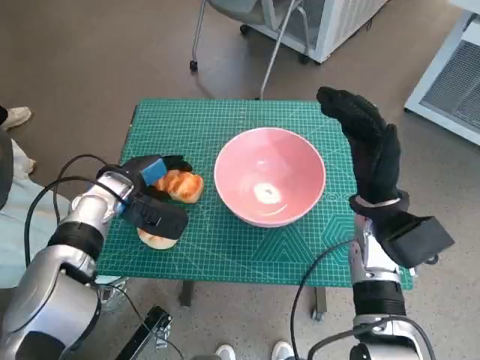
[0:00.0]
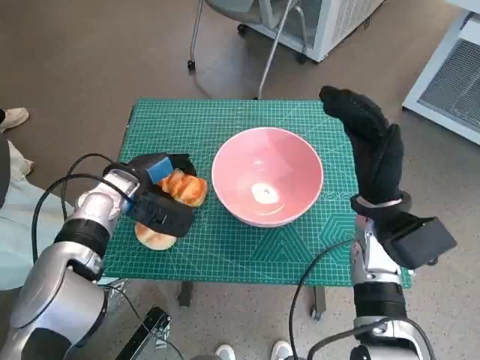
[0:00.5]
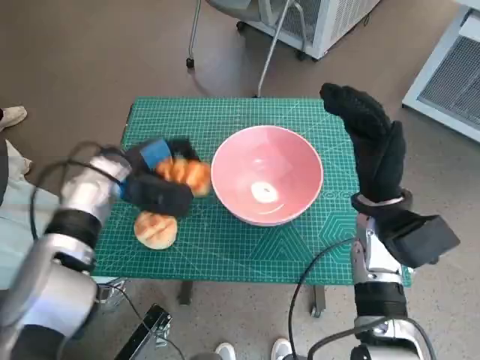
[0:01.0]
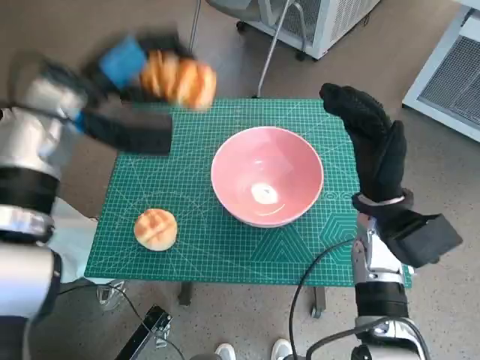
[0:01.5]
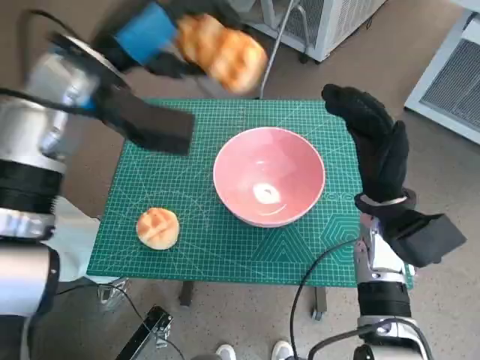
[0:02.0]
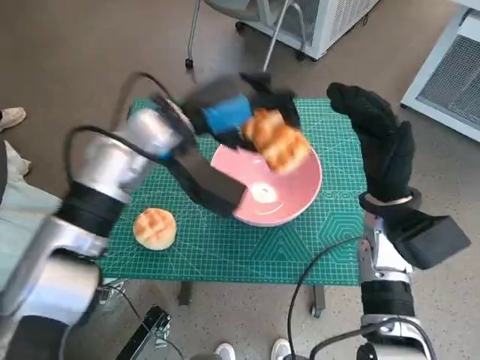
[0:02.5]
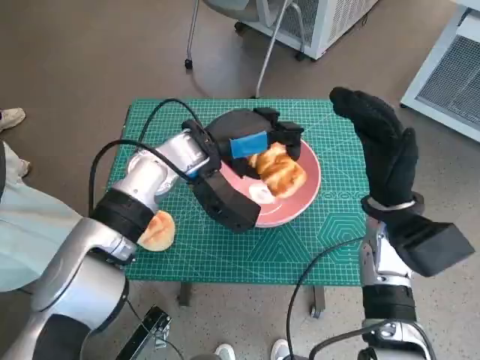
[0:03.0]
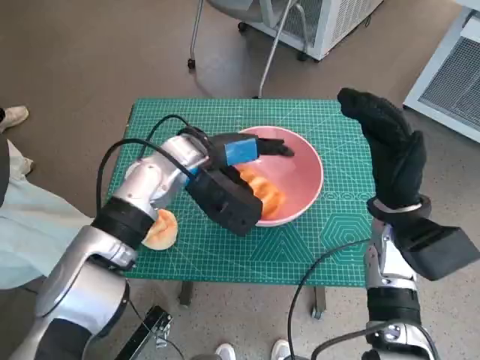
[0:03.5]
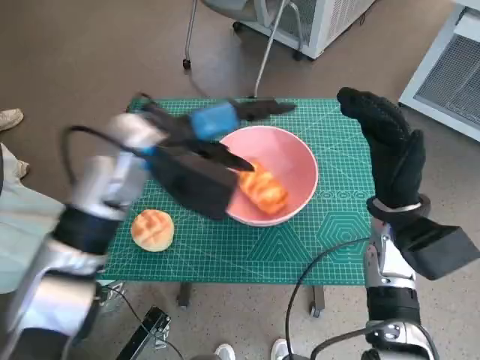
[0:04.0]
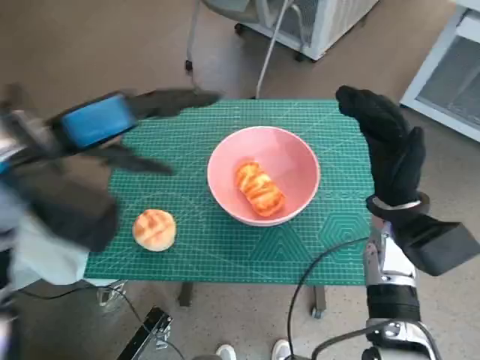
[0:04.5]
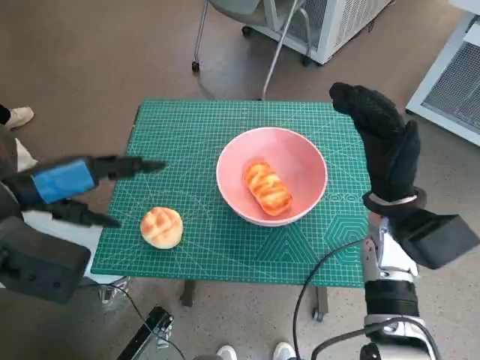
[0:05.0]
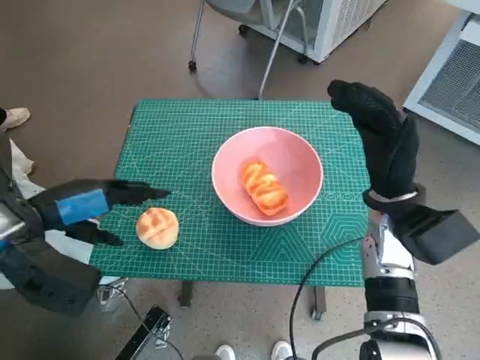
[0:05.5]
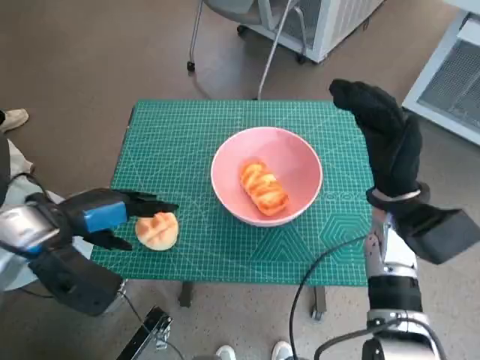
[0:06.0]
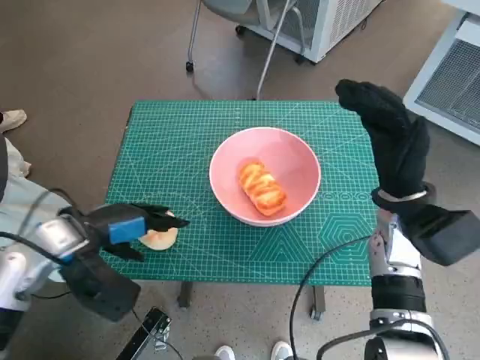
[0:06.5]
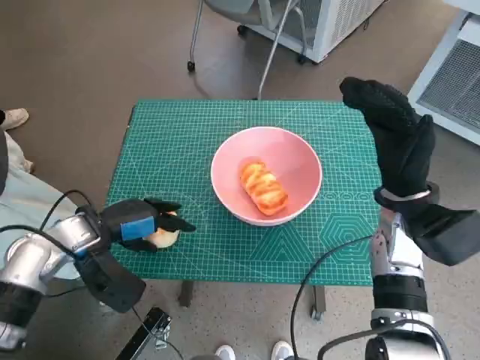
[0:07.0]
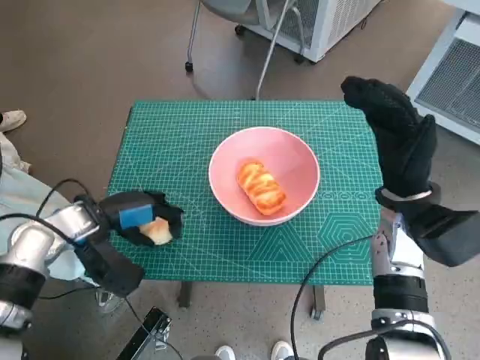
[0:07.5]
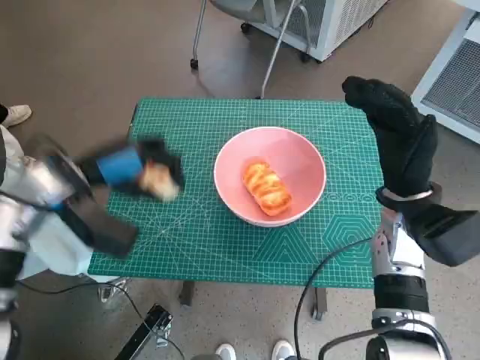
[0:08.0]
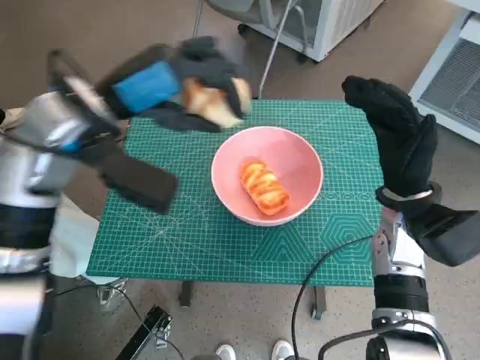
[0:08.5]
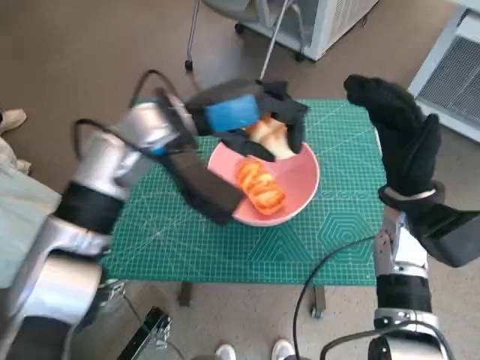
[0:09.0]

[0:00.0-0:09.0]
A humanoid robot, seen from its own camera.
Task of the whole recording: Push the bowl to the center of the table and put the bread into the bowl.
Step, 0:01.0 to 0:03.5: Place the long bread in pink bowl with left hand.
Step, 0:04.5 to 0:07.0: Grasp the round bread with left hand.
0:00.0 to 0:02.0: The left hand shifts approximately 20 cm upward.
0:02.0 to 0:04.5: The left hand moves backward, about 5 cm, and moves approximately 10 cm to the right and comes back.
0:04.5 to 0:07.0: The left hand heads downward, covering approximately 20 cm.
0:07.0 to 0:09.0: The left hand travels upward, to the right and forward by roughly 20 cm.

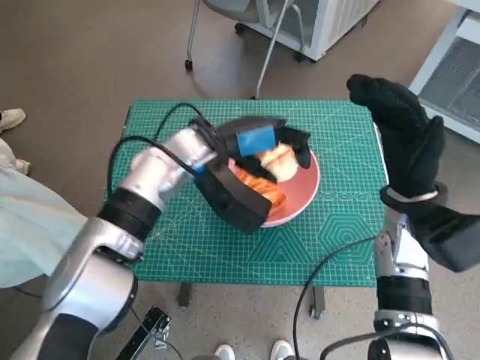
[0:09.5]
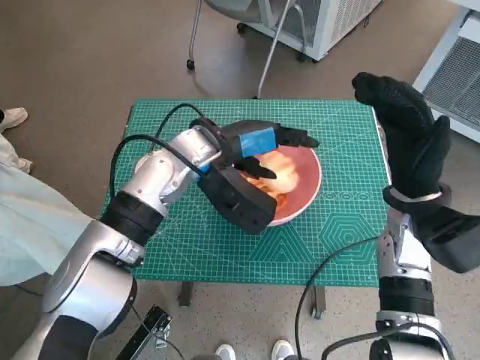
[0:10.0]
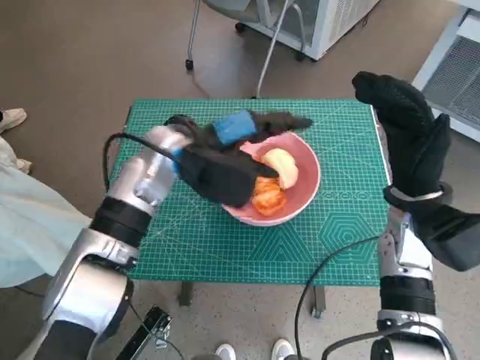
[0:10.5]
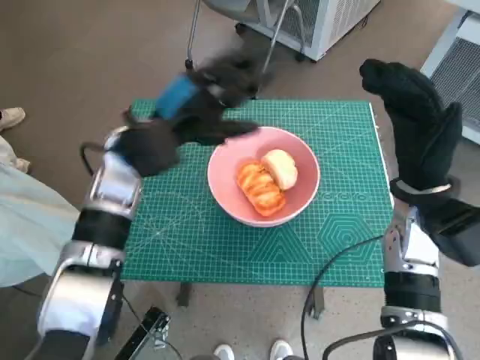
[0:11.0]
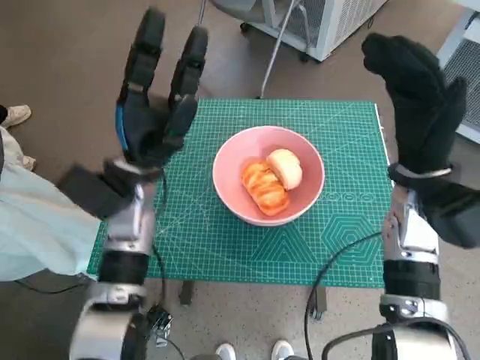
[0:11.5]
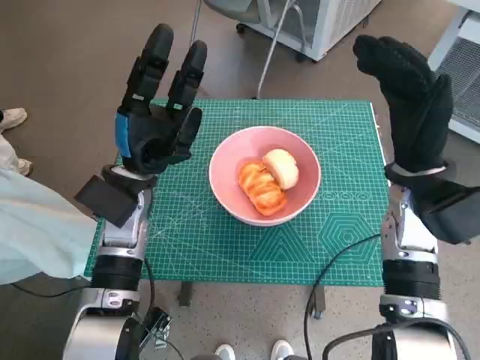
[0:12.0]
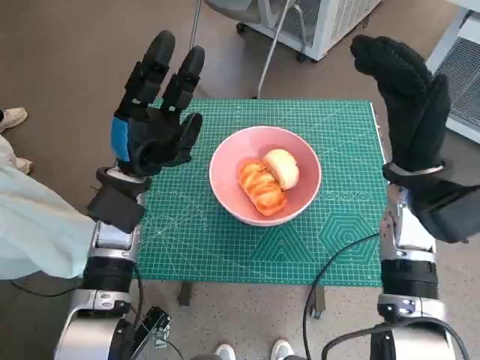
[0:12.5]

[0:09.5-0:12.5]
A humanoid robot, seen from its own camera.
Task of the whole recording: Push the bowl to the center of the table and put the bread into the bowl.
0:09.5 to 0:11.0: The left hand goes approximately 5 cm to the left.
0:11.0 to 0:12.5: The left hand heads downward, covering some 5 cm.

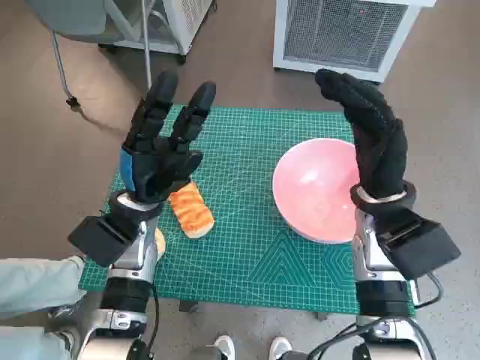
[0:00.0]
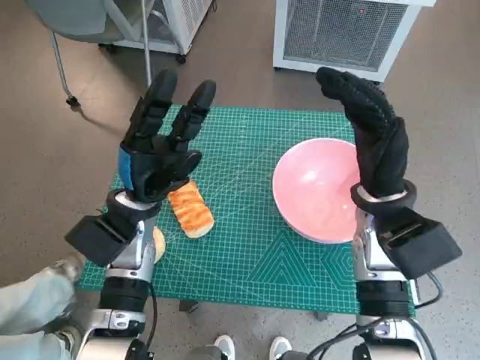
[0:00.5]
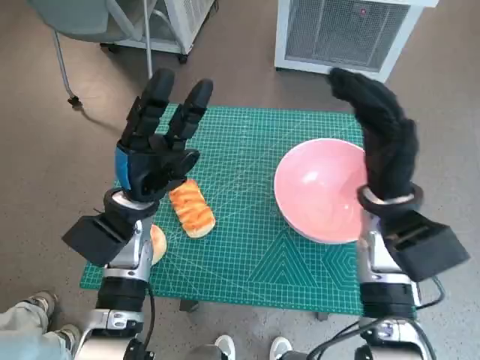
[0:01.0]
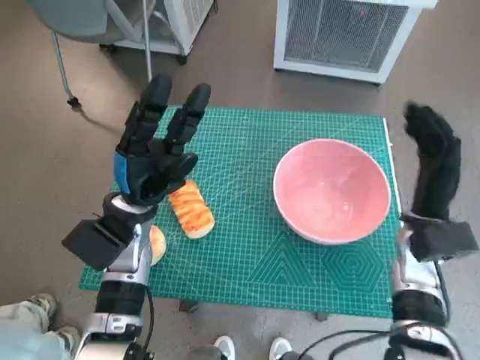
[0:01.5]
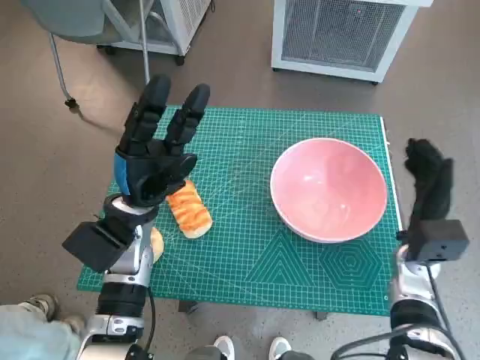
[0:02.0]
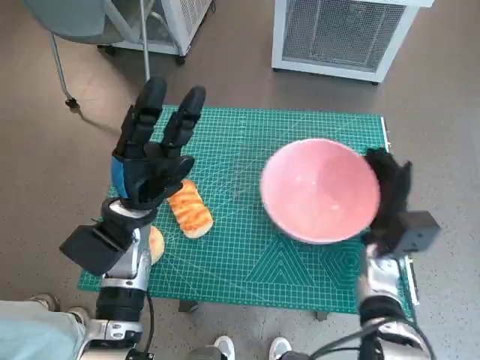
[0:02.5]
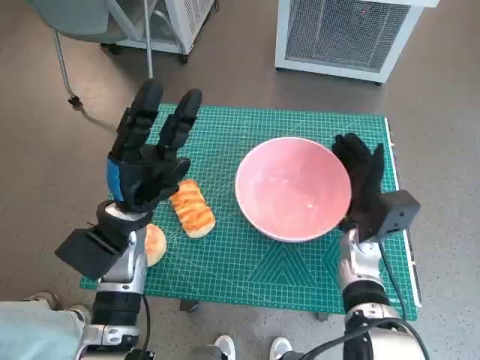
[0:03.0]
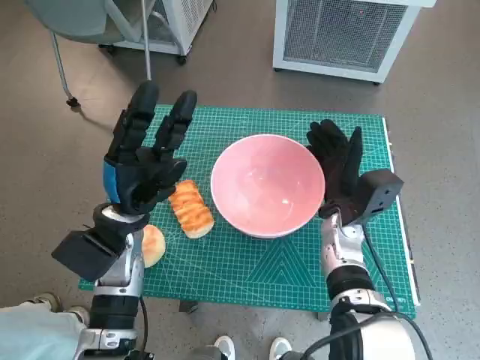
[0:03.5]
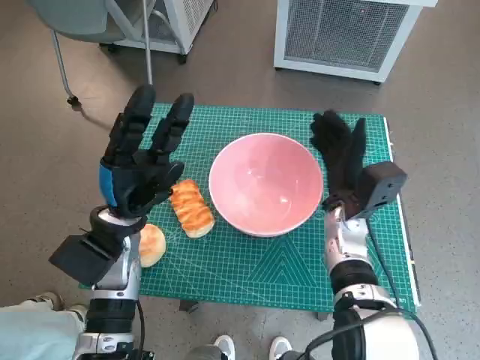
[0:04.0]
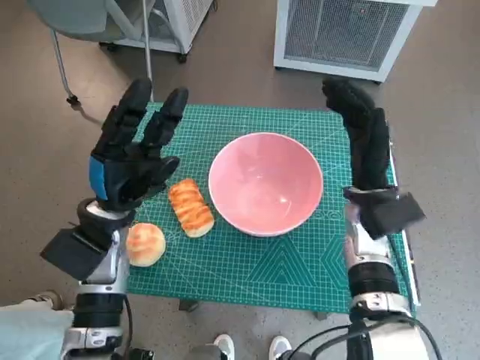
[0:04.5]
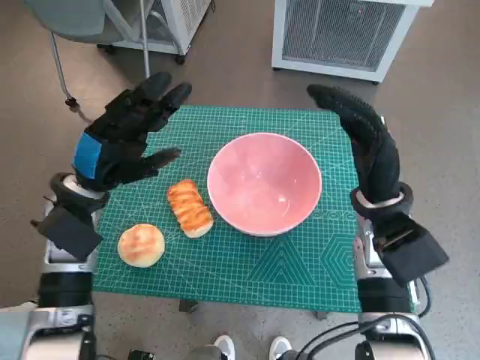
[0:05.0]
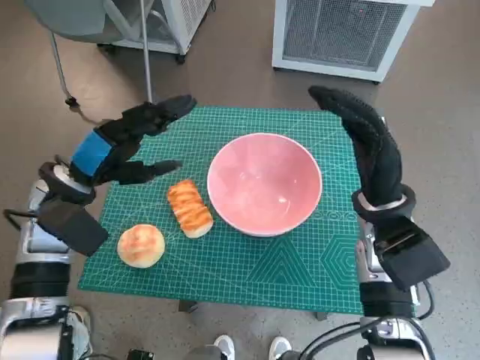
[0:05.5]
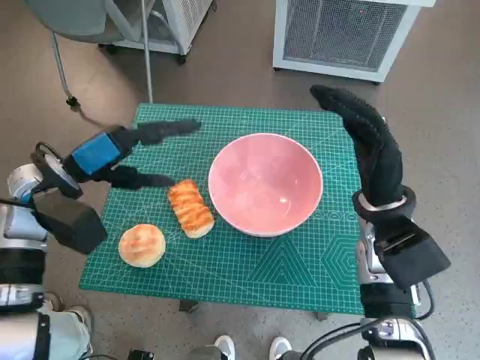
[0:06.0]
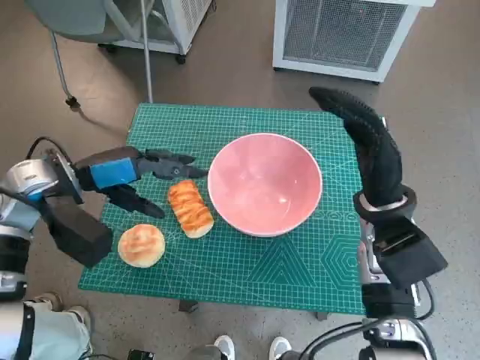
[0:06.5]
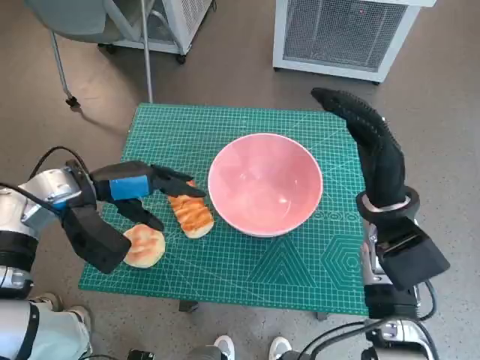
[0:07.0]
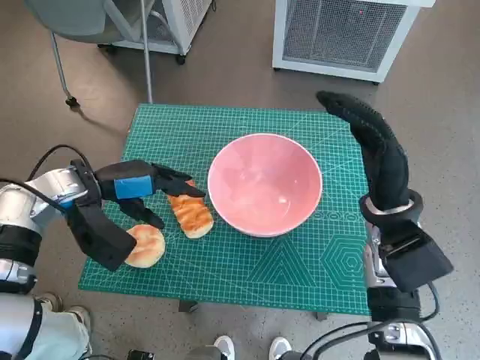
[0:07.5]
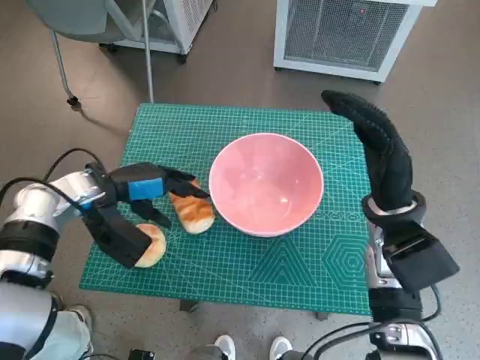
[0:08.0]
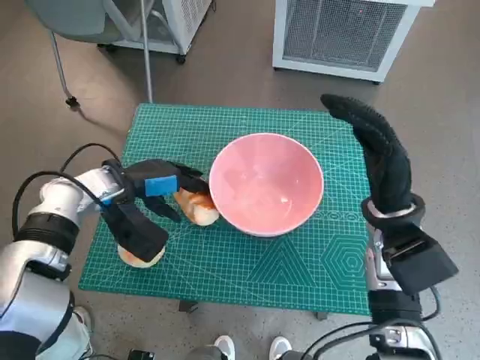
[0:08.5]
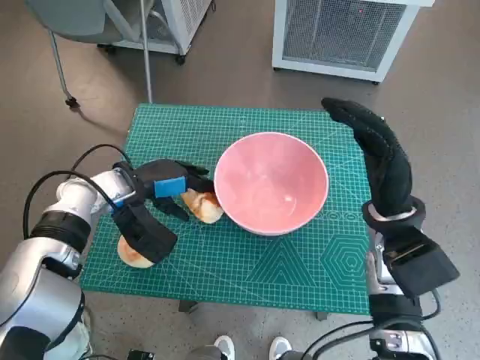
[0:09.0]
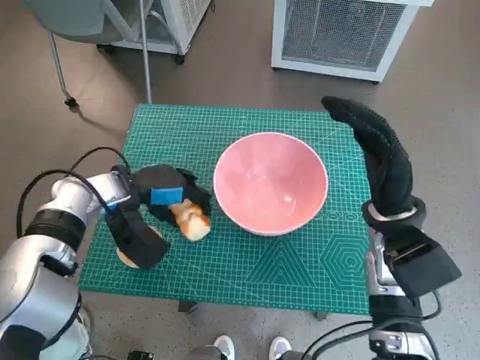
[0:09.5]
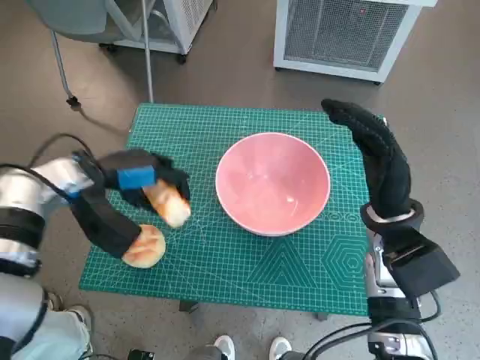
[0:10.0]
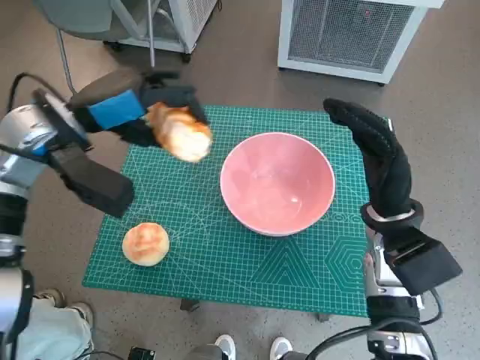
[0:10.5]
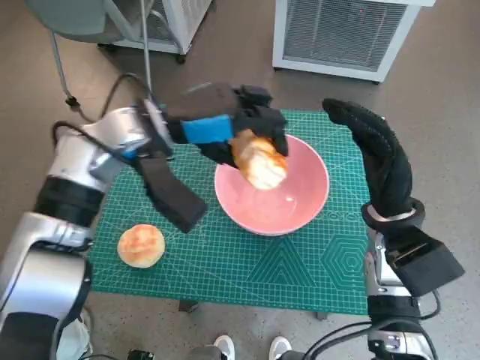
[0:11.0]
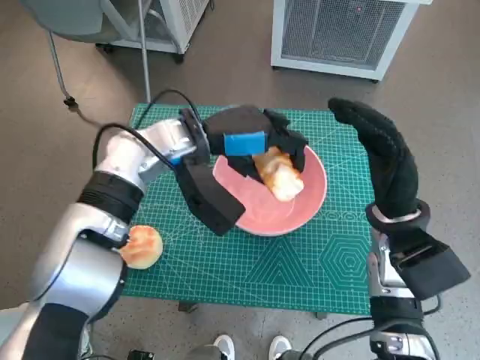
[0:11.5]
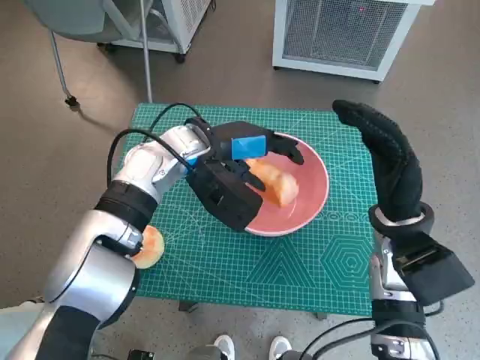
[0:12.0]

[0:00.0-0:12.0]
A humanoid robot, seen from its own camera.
Task of the whole recording: Push the bowl to the center of the table and put the bread into the bowl.
Step, 0:00.0 to 0:04.0: Move the pink bowl to the center of table with right hand.
Step, 0:04.5 to 0:09.0: Grasp the long bread with left hand.
0:02.0 to 0:04.0: The right hand goes approximately 10 cm to the left.
0:04.0 to 0:06.0: The right hand travels upward by approximately 10 cm, while the left hand goes approximately 10 cm upward and to the left.
0:06.0 to 0:08.0: The left hand heads downward, covering some 5 cm.
0:08.0 to 0:10.0: The hands move only a little.
0:10.0 to 0:12.0: The left hand is displaced to the right by roughly 15 cm.

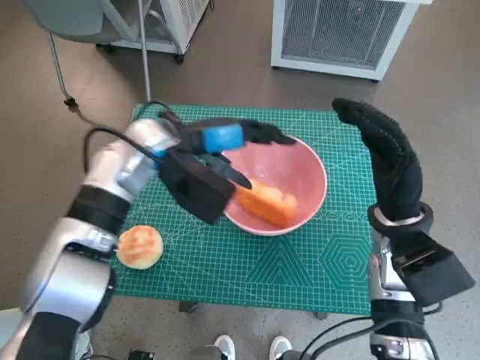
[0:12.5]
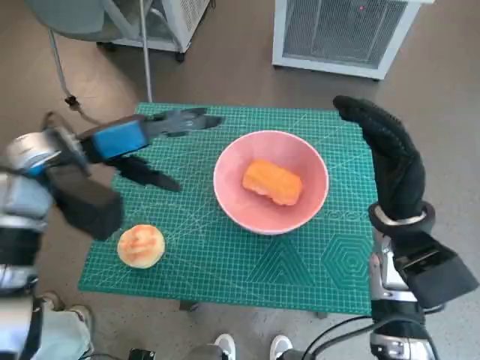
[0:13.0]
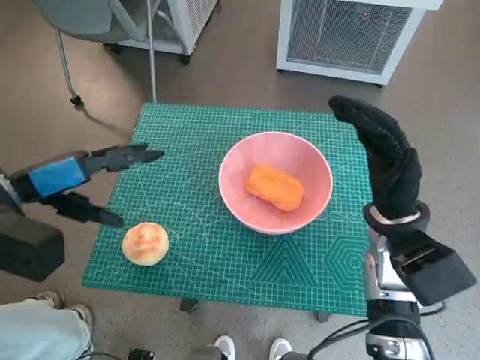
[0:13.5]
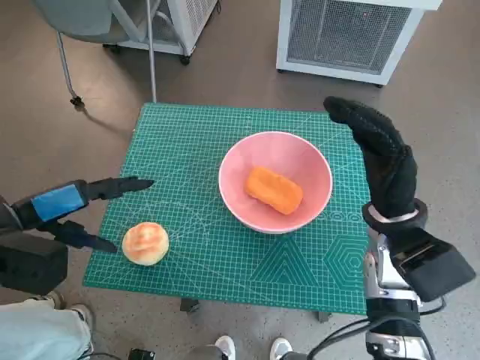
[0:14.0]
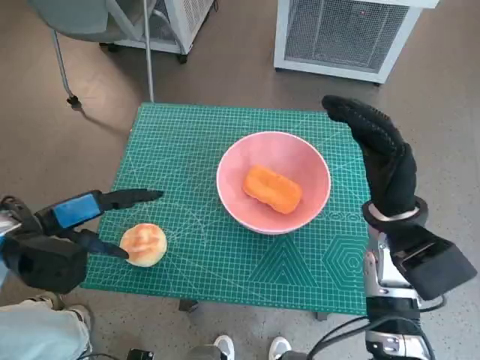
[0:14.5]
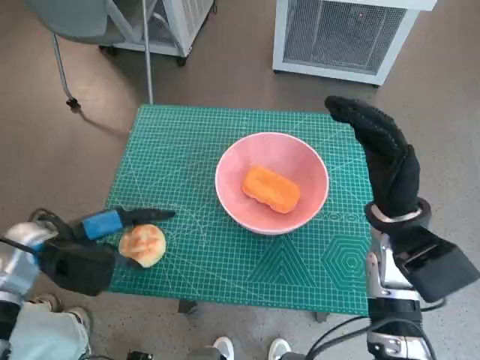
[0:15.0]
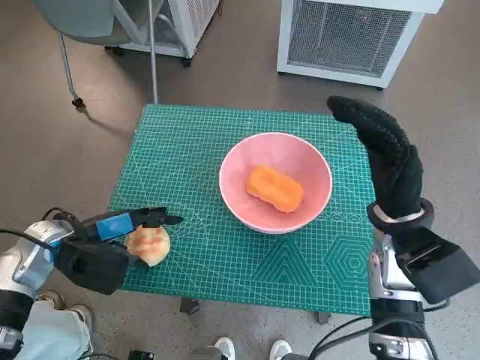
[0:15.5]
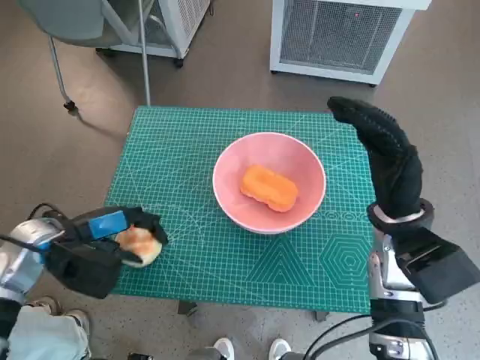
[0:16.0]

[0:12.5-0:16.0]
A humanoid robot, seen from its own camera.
Task of the whole recording: Push the bowl to the center of the table and put the bread into the bowl.
Step, 0:13.0 to 0:15.5: Grasp the round bread with left hand.
0:12.5 to 0:14.5: The left hand is displaced to the left and backward by approximately 20 cm.
0:14.5 to 0:16.0: The left hand changes place by approximately 5 cm.
